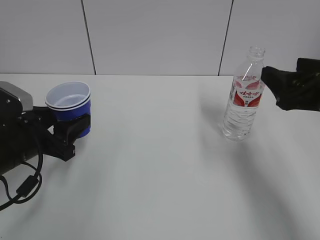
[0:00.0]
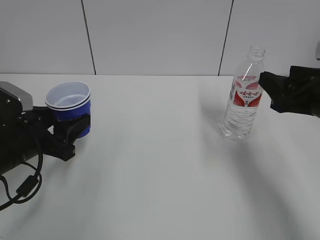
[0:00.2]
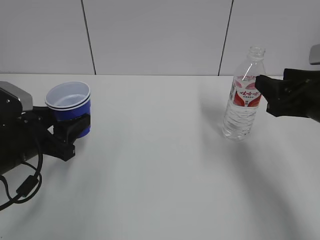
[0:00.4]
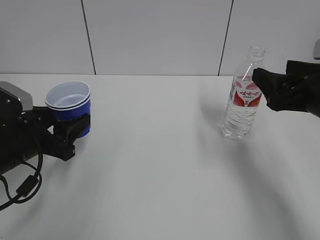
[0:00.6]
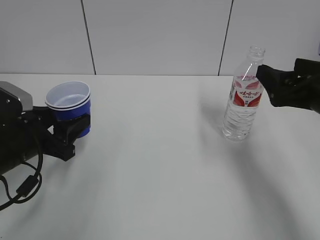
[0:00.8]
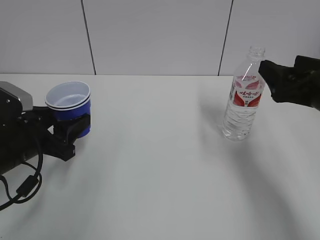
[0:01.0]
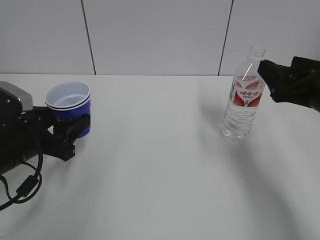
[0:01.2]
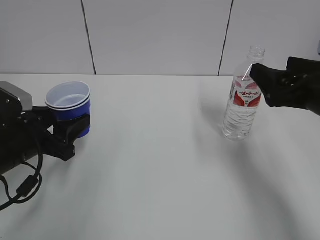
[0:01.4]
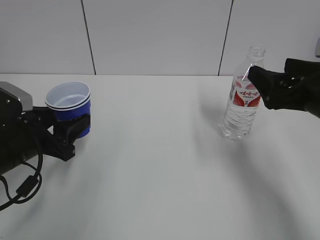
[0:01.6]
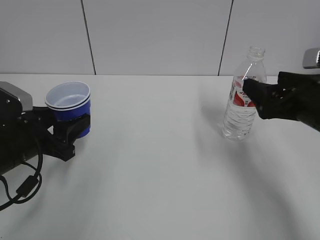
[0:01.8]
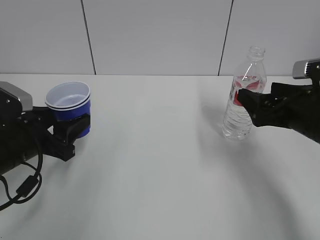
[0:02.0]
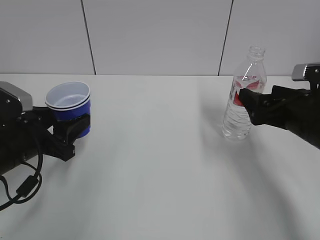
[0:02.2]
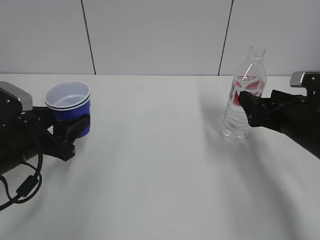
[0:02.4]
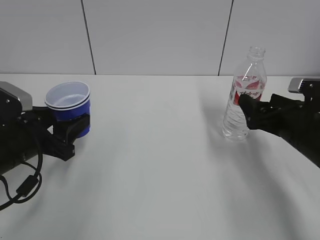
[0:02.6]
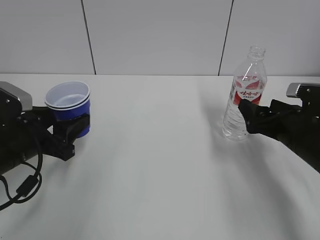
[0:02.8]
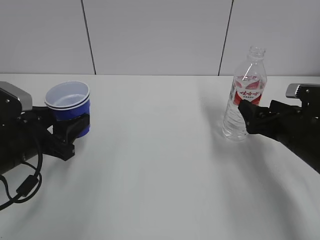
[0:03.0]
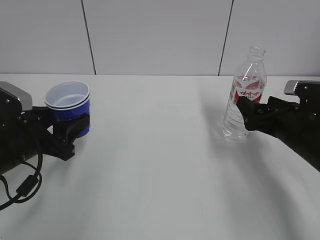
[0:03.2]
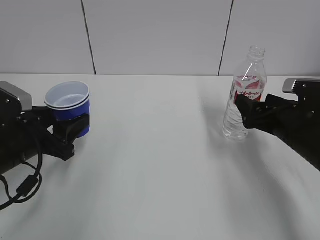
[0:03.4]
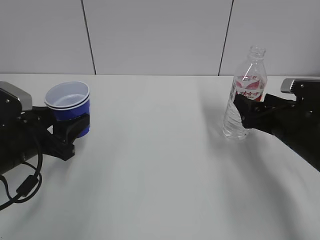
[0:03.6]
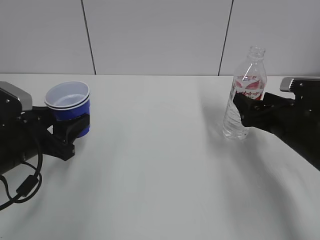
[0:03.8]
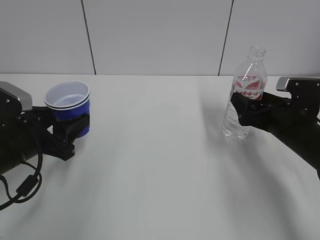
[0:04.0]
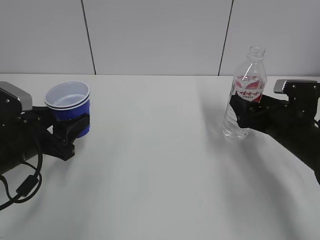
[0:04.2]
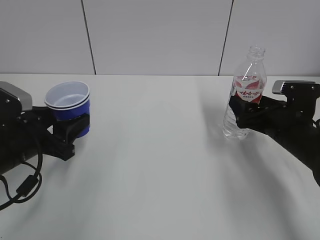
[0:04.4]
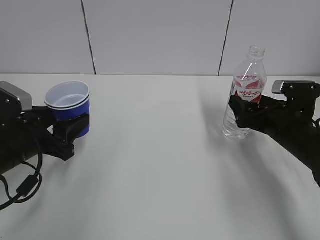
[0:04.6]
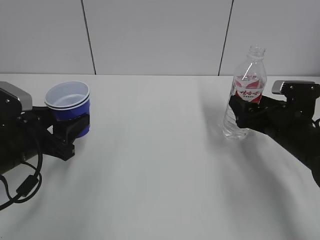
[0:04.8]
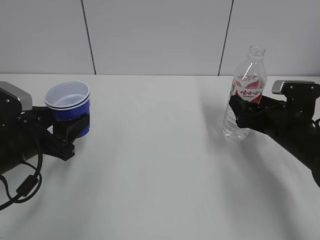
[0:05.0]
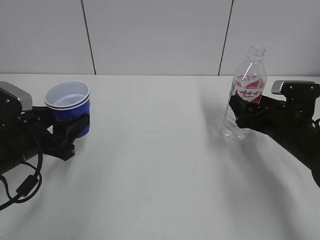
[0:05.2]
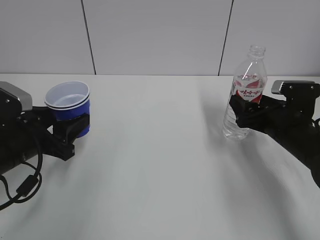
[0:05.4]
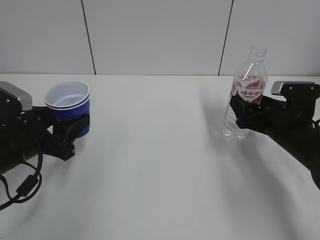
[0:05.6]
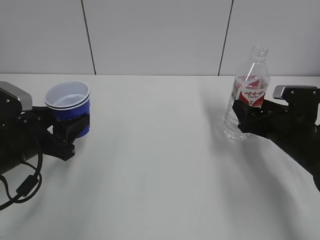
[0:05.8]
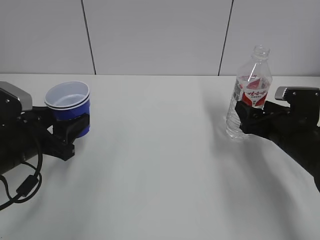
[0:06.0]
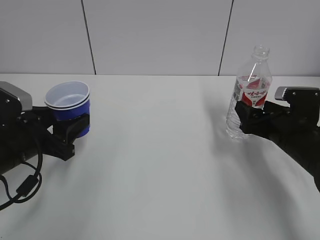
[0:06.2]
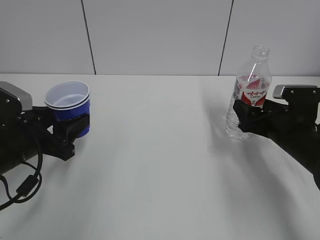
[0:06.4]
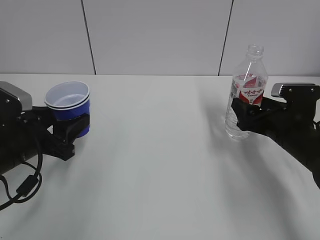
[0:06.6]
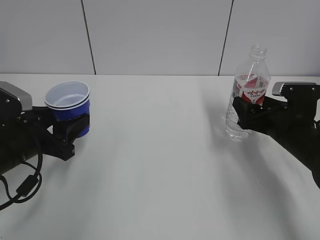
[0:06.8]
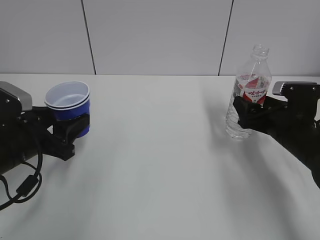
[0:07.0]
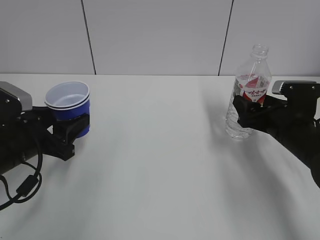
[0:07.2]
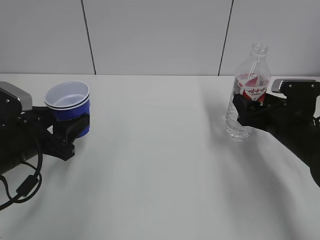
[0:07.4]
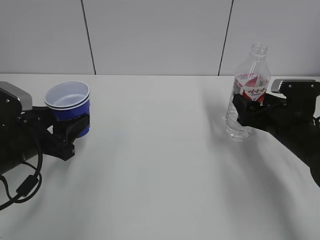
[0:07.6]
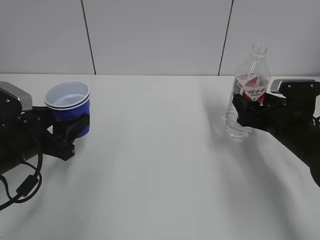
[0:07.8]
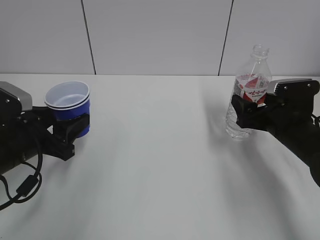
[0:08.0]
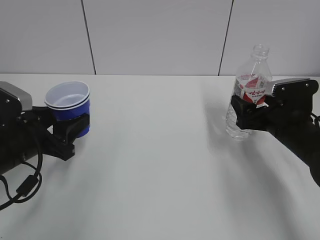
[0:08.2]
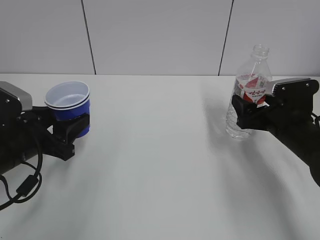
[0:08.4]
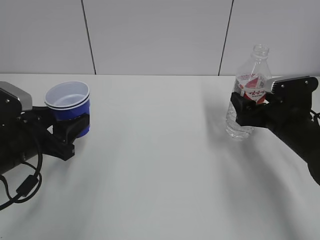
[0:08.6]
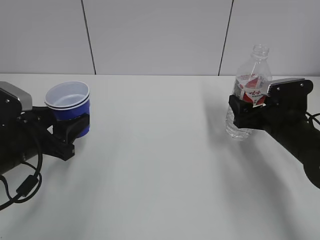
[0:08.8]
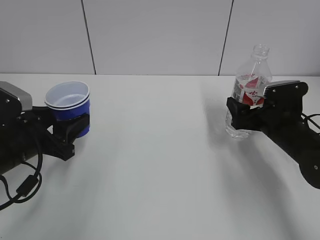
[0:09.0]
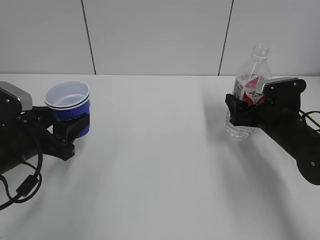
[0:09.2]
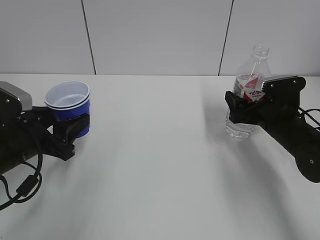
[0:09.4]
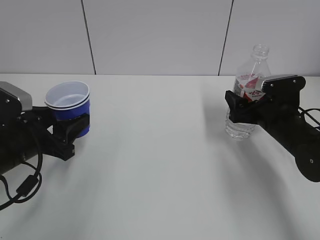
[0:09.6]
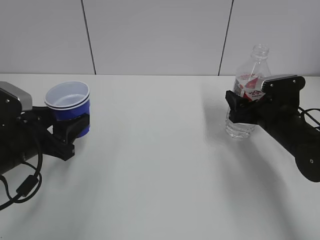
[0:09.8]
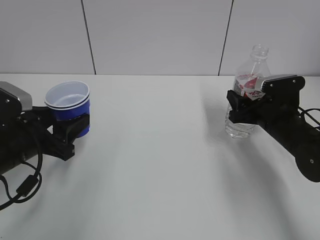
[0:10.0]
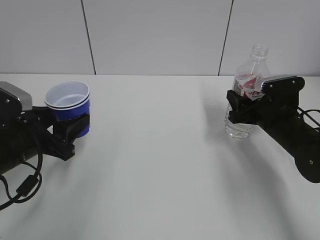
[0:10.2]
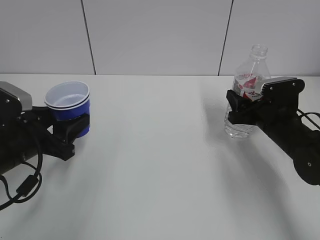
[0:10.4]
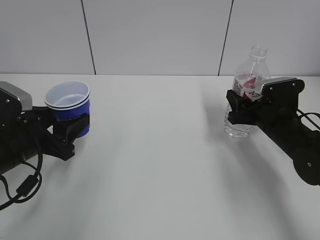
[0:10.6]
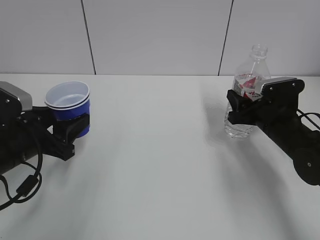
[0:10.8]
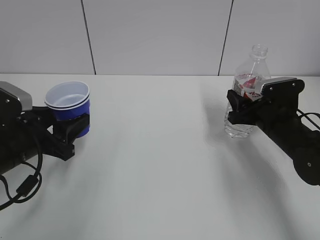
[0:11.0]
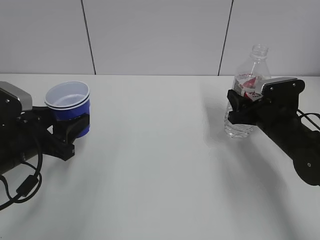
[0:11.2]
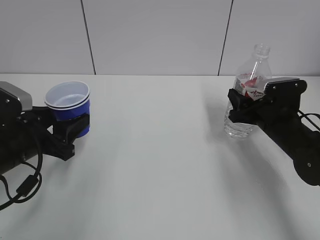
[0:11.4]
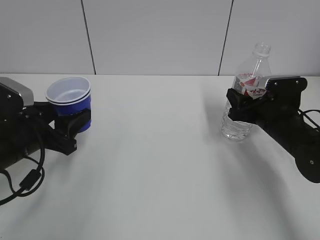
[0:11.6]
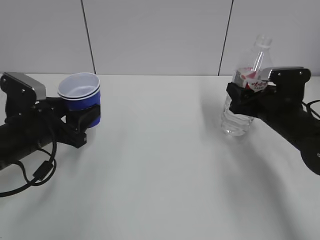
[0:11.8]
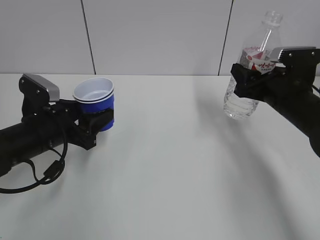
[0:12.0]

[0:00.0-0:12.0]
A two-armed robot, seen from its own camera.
Step, 0:00.0 to 0:11.0: Grab the water bottle with the right hand.
0:00.0 to 0:01.6: The right gripper opens its fingers.
0:01.6 to 0:03.0: The right gripper travels downward by about 10 cm.
0:03.0 to 0:04.4: There are only small adjustments of the grippers.
0:04.4 to 0:06.0: Both grippers stay about where they are.
0:06.0 to 0:09.0: The grippers make only small movements.
0:09.0 to 0:10.4: The right gripper closes its fingers.
0:10.4 to 0:12.0: The right gripper shifts roughly 5 cm upward.

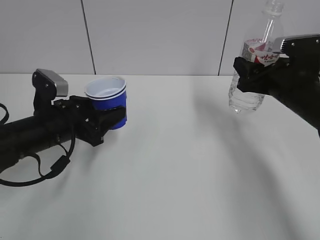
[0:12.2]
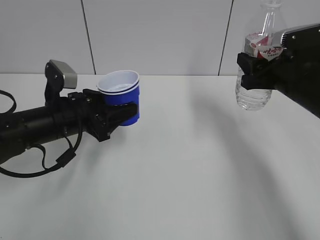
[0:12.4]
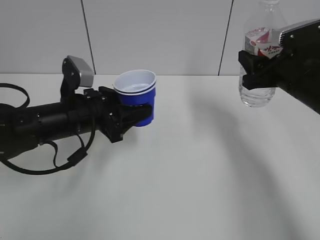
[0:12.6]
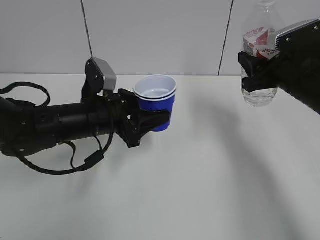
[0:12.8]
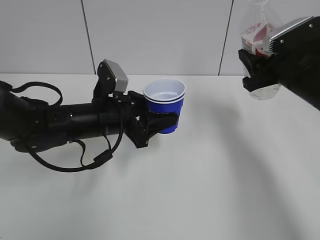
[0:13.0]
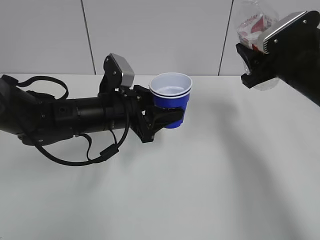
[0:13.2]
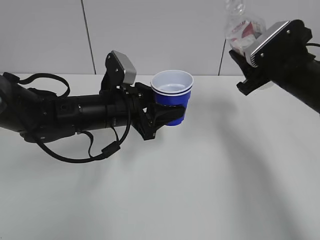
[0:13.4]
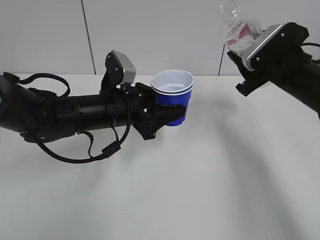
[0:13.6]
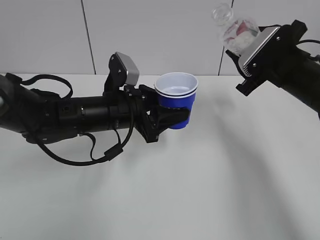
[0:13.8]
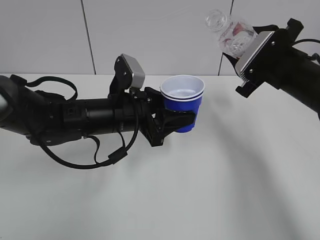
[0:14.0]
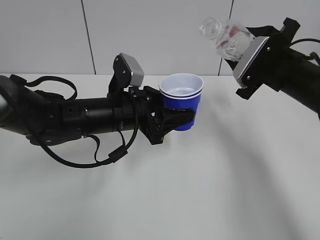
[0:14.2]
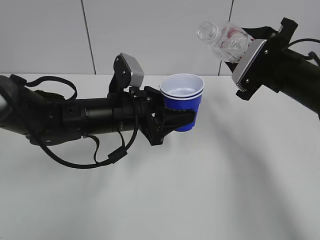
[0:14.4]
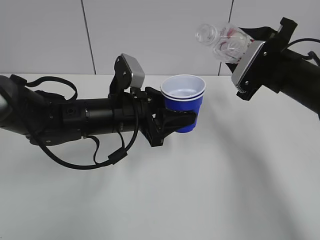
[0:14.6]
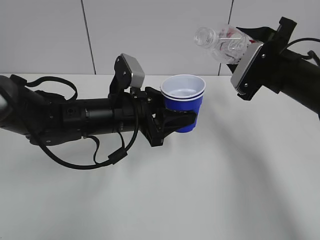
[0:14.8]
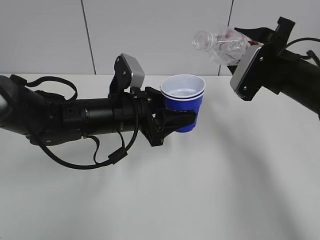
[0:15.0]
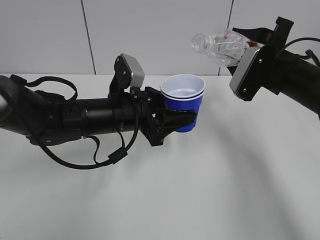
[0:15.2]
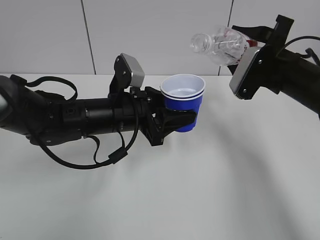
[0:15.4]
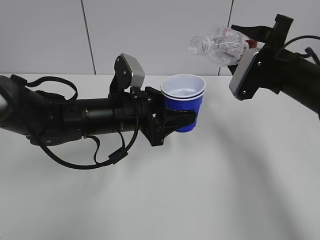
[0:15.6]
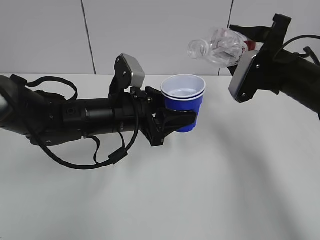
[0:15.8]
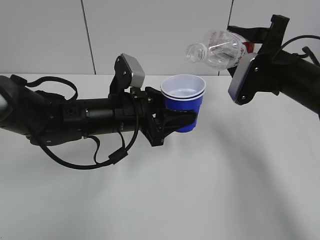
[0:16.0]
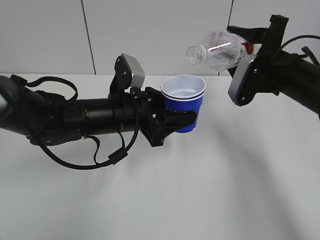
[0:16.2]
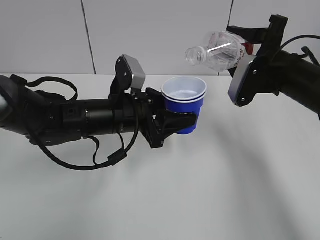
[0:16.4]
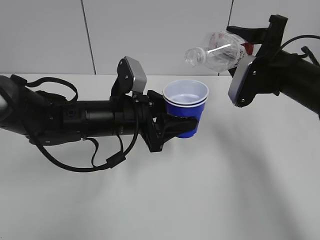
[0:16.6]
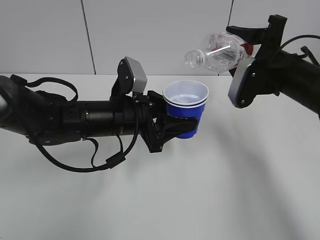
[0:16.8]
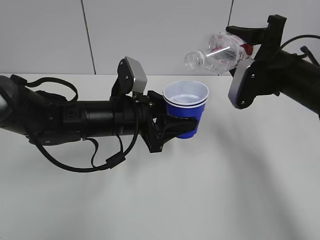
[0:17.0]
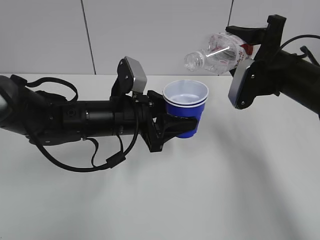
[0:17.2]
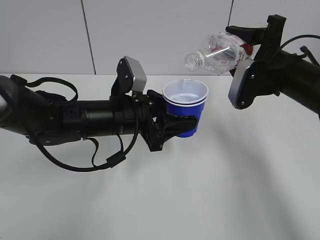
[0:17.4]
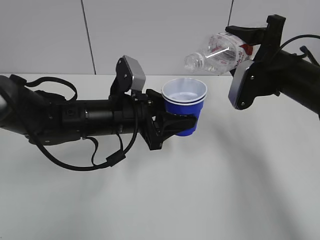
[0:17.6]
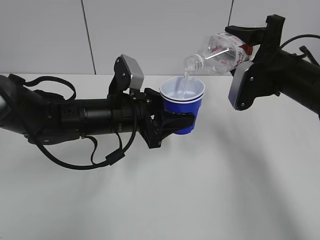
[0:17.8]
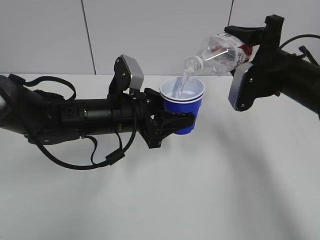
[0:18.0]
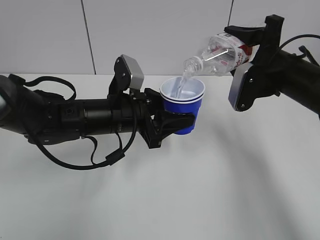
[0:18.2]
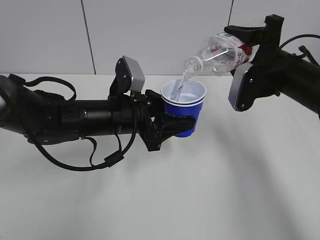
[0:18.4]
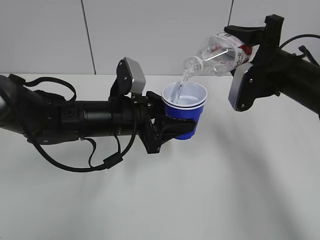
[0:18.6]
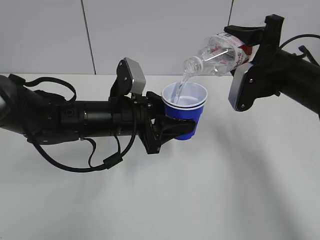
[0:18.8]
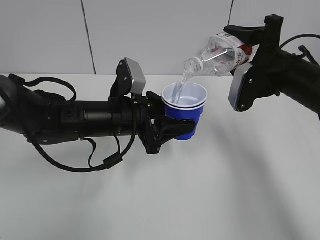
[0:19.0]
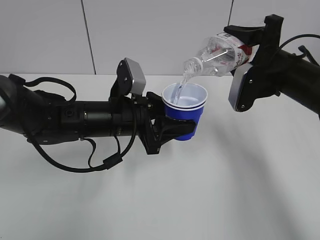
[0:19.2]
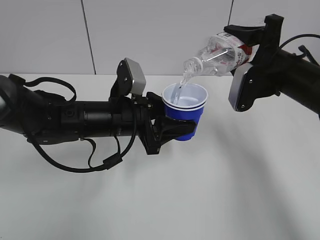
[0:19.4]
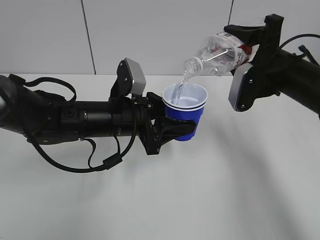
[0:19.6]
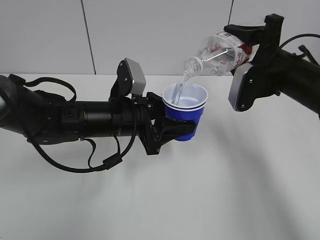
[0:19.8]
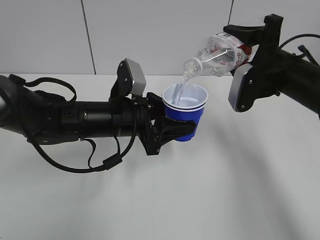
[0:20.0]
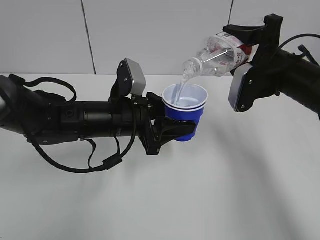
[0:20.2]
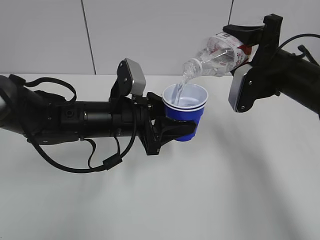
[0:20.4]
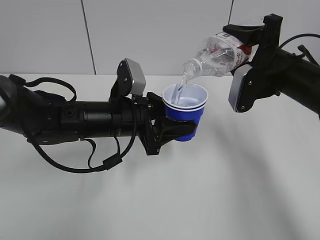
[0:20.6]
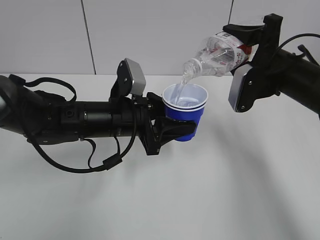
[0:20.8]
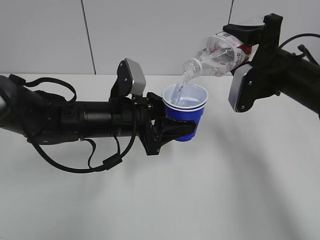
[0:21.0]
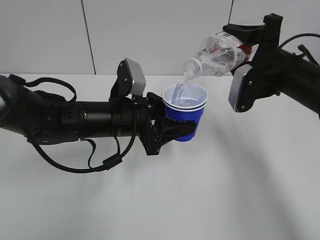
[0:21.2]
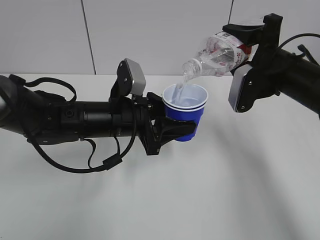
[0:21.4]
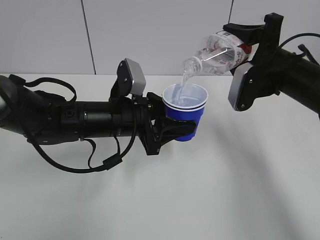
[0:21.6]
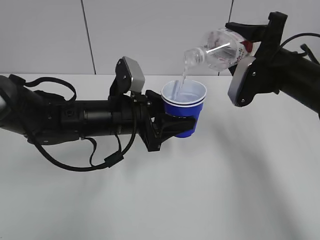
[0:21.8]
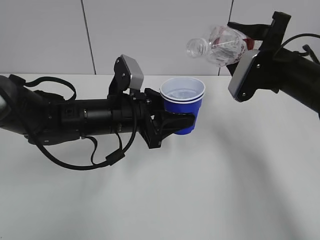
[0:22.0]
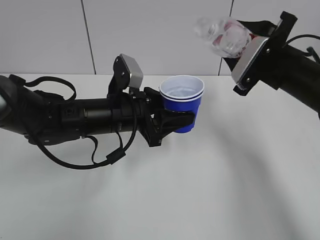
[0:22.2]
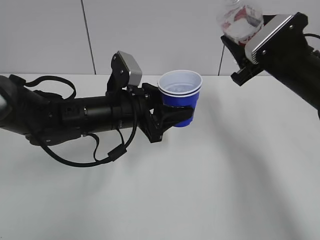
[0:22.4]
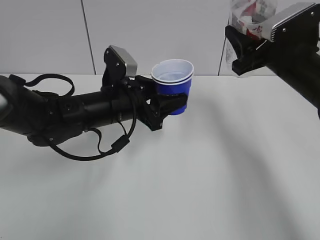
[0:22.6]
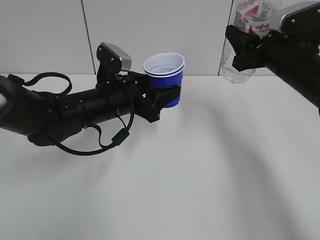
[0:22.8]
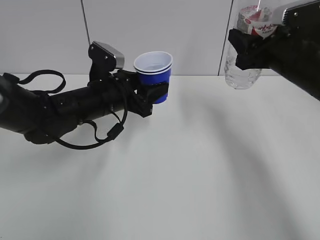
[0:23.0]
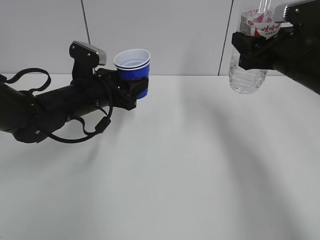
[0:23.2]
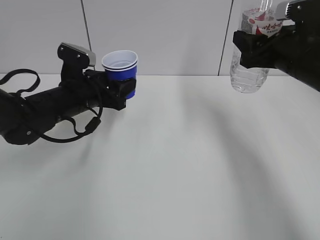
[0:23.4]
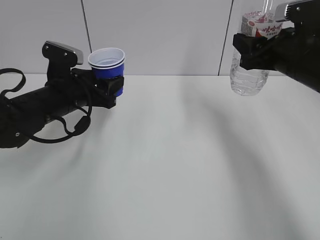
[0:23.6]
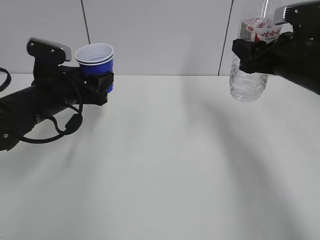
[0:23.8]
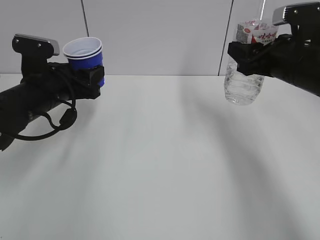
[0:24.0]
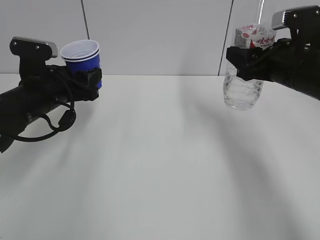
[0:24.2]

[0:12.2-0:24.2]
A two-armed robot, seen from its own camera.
Step, 0:12.6 to 0:17.2: Fill water with the left hand.
Step, 0:12.6 to 0:17.2: Pour water with the right hand.
Step, 0:17.4 to 0:22.6: Collect water with the right hand.
0:12.2 to 0:13.8: The left gripper shifts roughly 10 cm to the right.
0:15.2 to 0:16.6: The grippers stay close to where they were, moving slightly.
0:16.6 to 0:18.2: The grippers stay close to where they were, moving slightly.
0:18.2 to 0:21.2: Both grippers stay put.
0:22.6 to 0:24.2: The left gripper shifts some 10 cm to the left.
